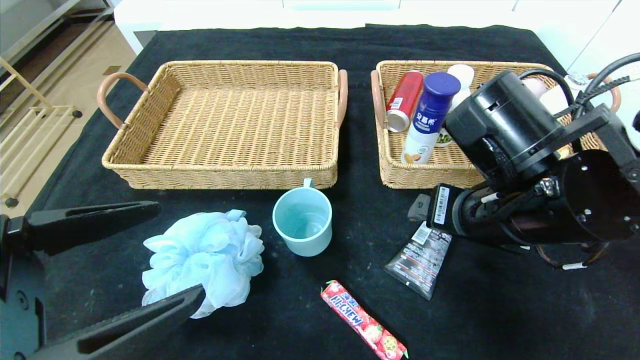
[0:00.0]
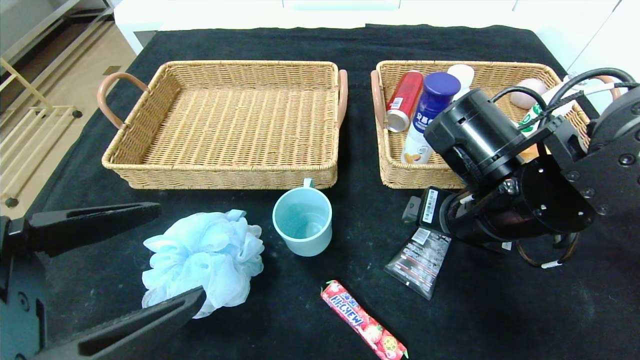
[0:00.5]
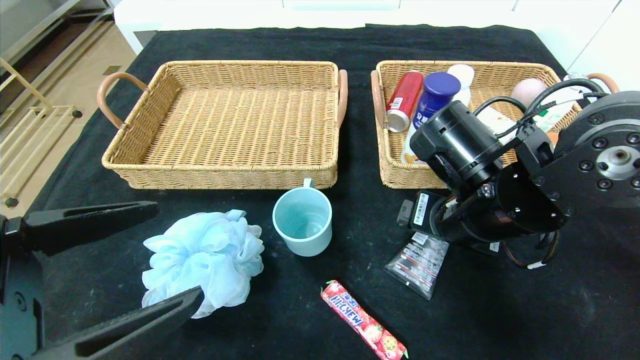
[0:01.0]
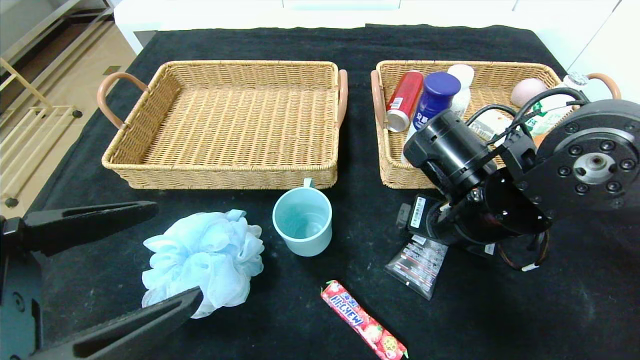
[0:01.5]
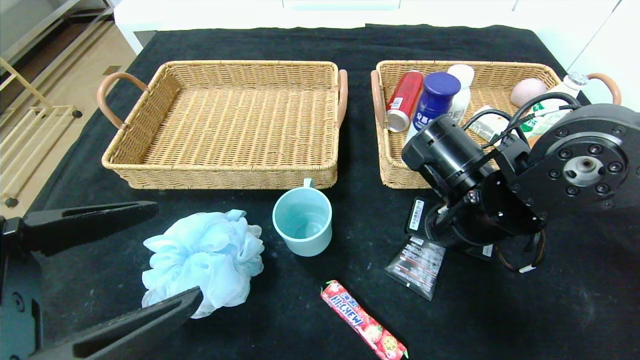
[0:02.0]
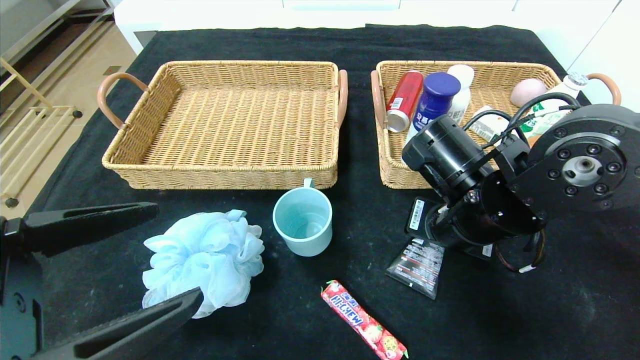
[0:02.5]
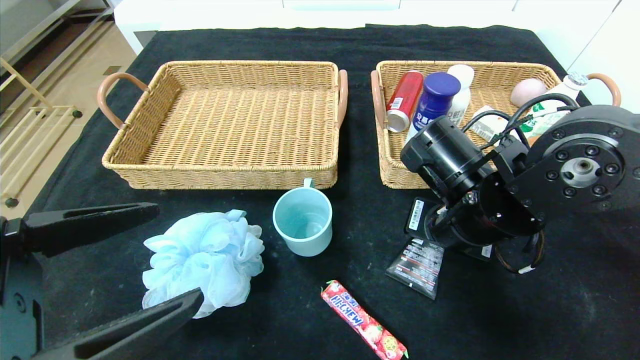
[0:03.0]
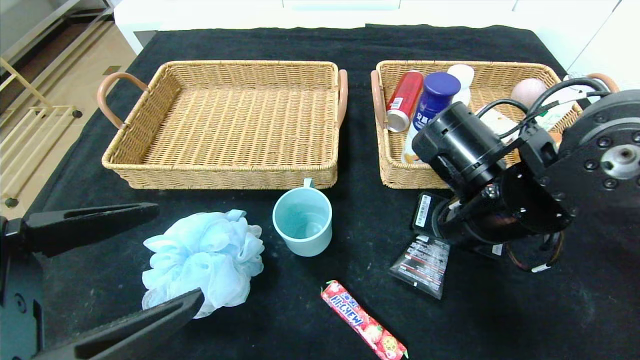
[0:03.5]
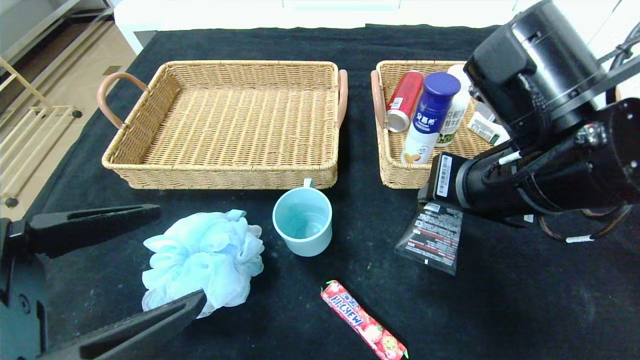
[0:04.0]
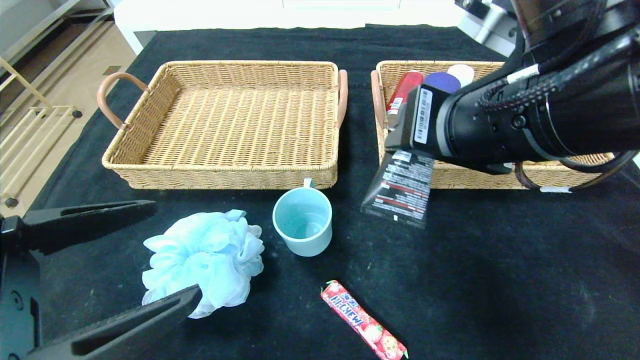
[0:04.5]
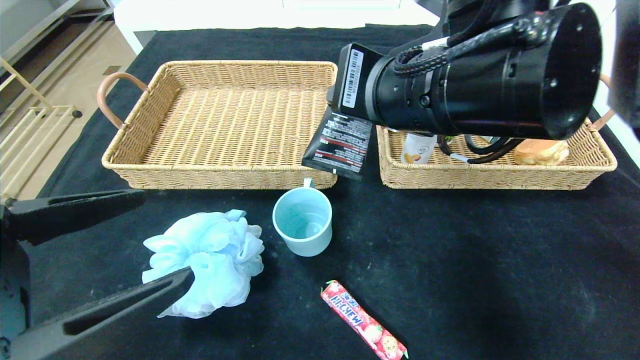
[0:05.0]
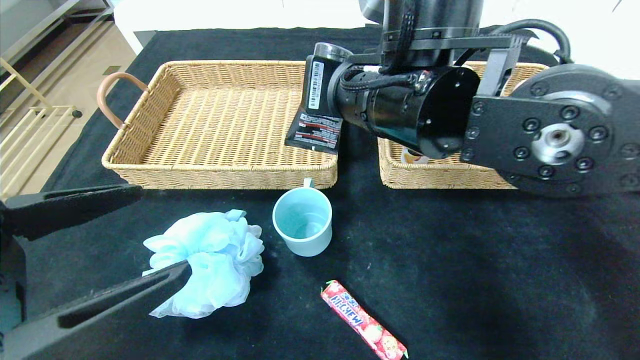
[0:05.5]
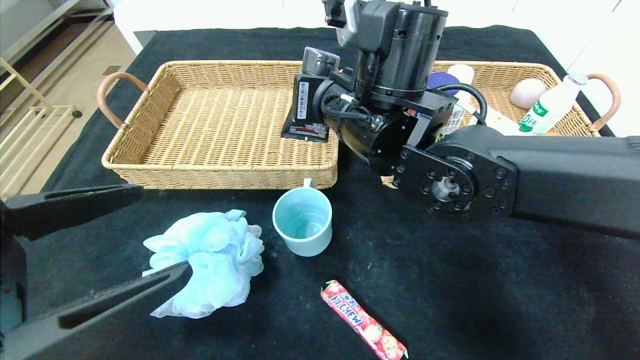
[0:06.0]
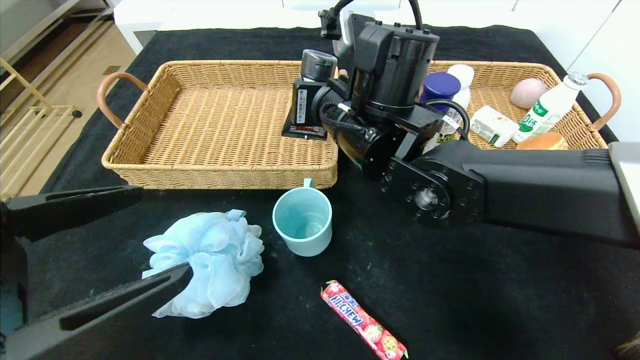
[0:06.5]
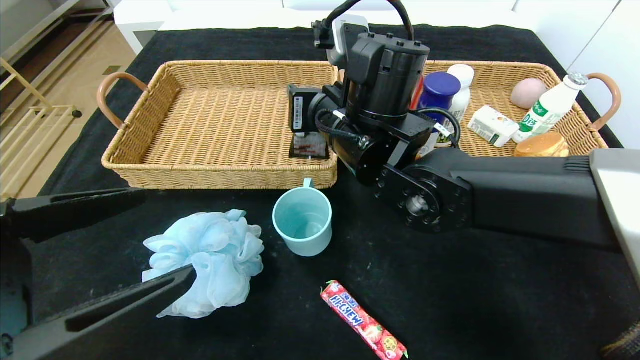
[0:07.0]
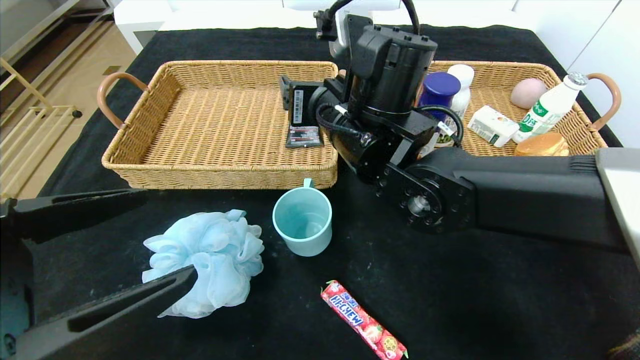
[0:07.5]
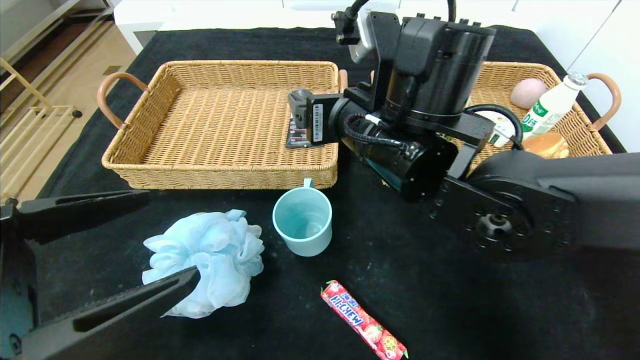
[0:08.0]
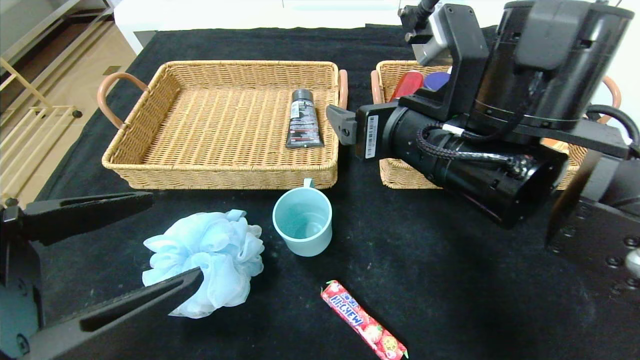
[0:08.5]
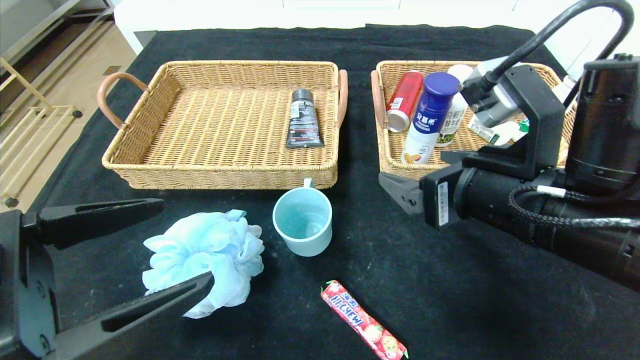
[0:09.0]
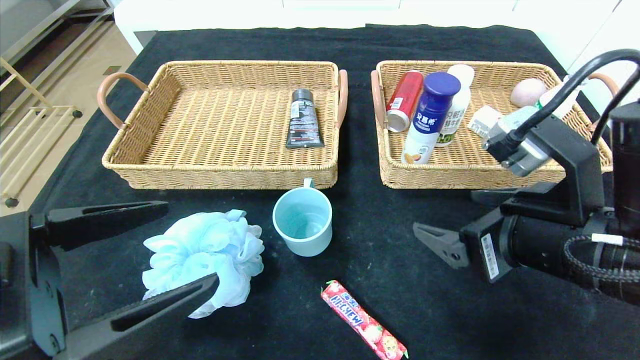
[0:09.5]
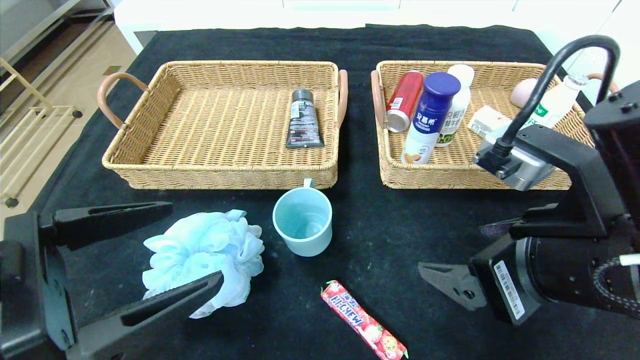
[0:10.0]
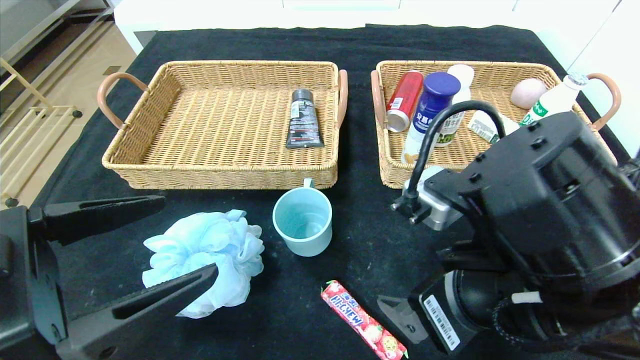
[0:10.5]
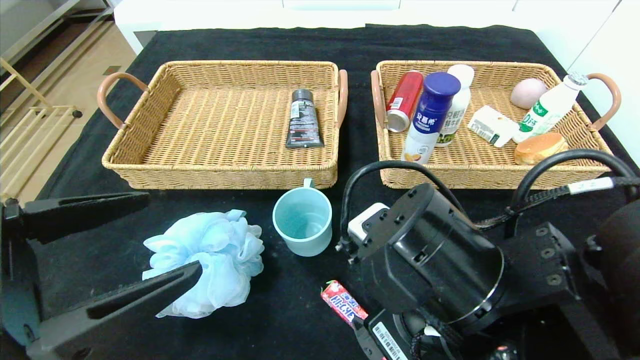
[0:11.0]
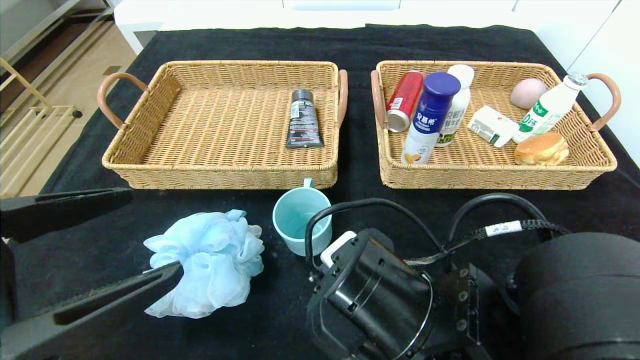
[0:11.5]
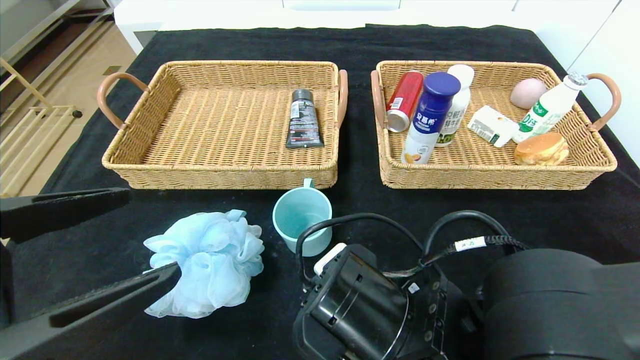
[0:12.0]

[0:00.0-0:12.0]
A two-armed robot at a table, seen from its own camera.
0:00.0 to 0:02.0: The right gripper moves roughly 5 cm, and closes.
0:02.0 to 0:04.0: The right gripper shifts approximately 5 cm upward.
0:04.0 to 0:06.0: The right gripper is displaced to the left and forward by some 15 cm.
0:06.0 to 0:08.0: The right gripper opens up.
0:08.0 to 0:10.0: The right gripper is displaced backward and to the right by roughly 20 cm.
0:10.0 to 0:12.0: The right gripper goes approximately 15 cm to the left and downward, and closes up.

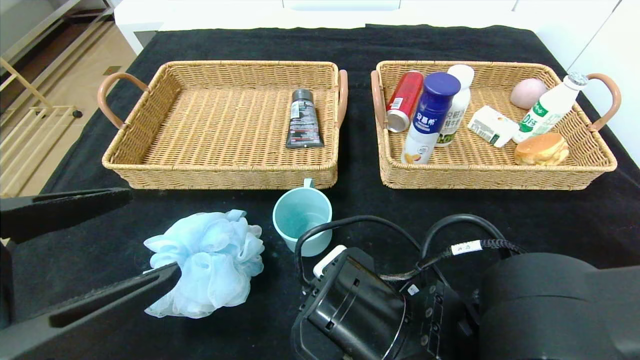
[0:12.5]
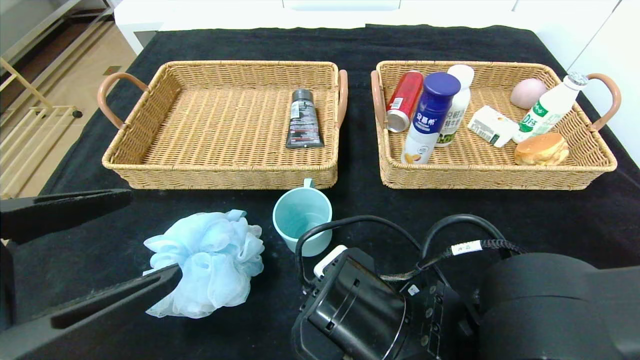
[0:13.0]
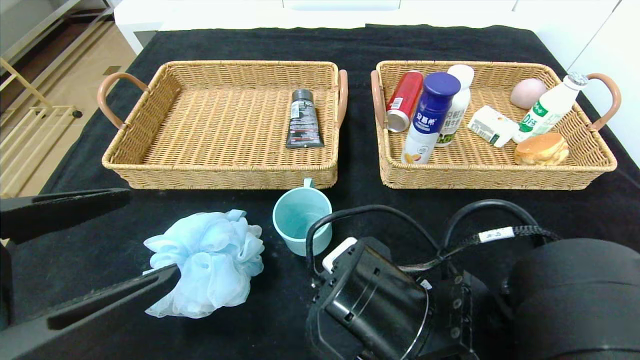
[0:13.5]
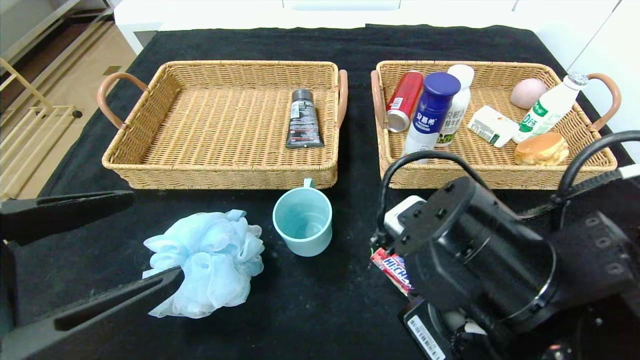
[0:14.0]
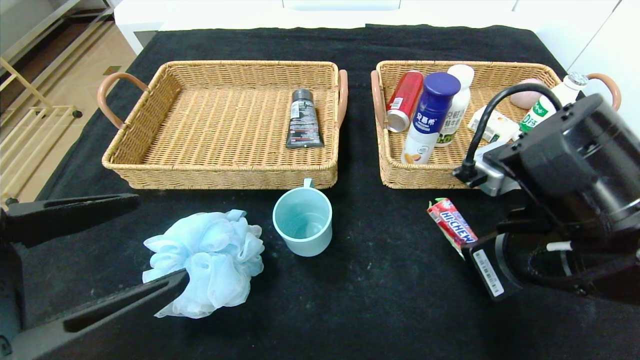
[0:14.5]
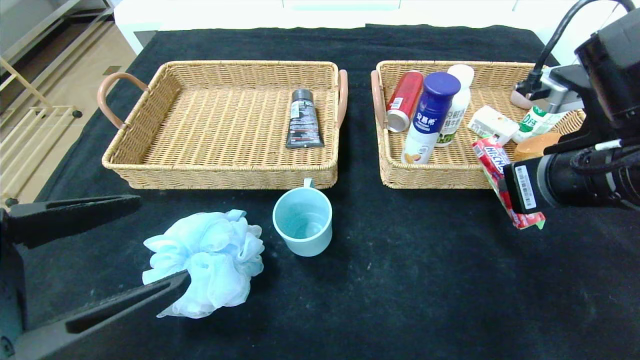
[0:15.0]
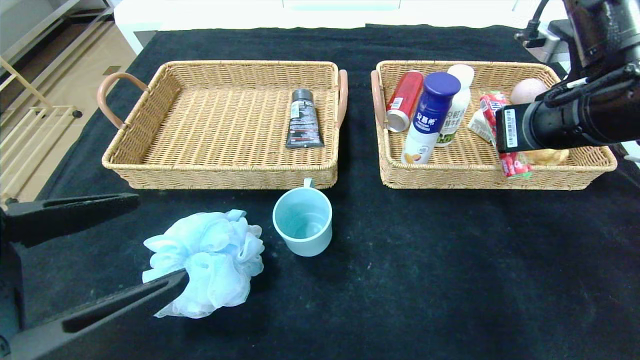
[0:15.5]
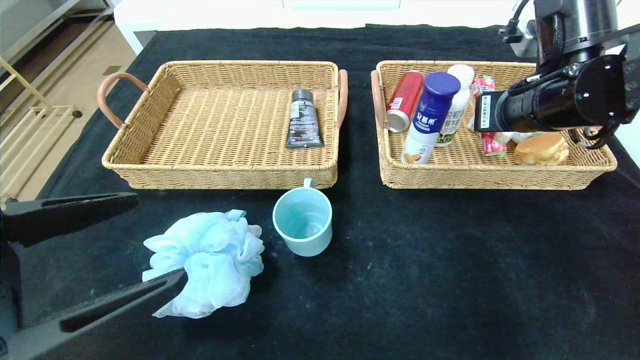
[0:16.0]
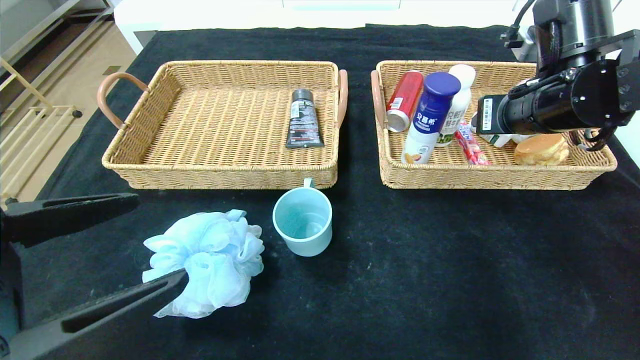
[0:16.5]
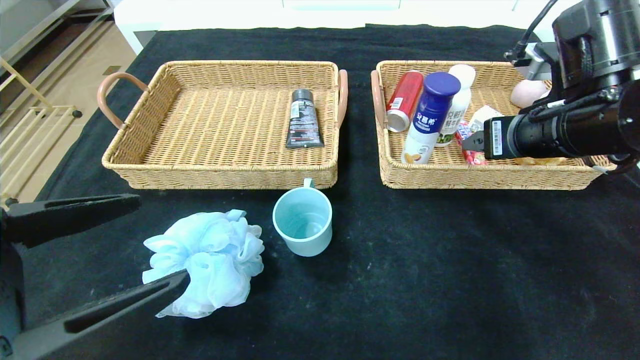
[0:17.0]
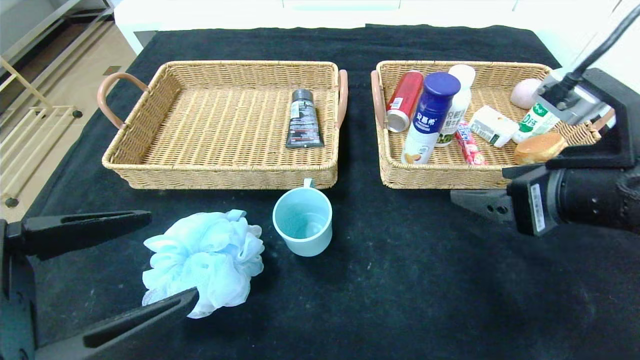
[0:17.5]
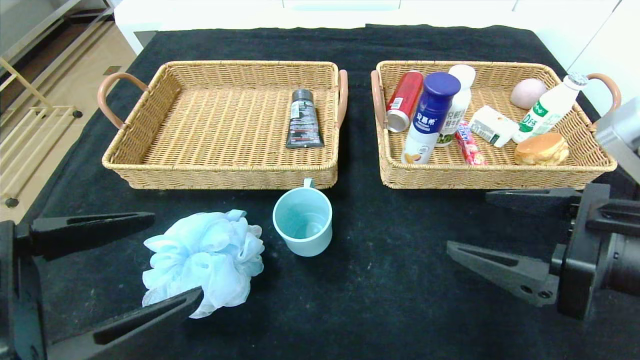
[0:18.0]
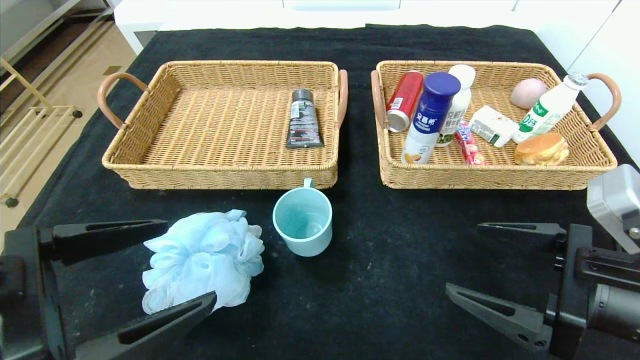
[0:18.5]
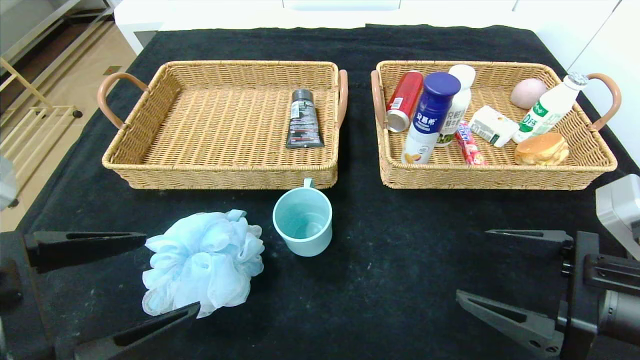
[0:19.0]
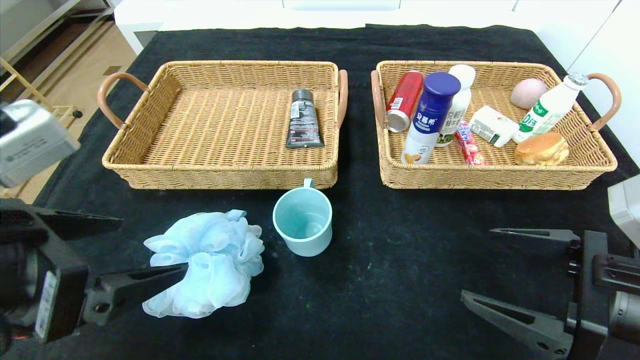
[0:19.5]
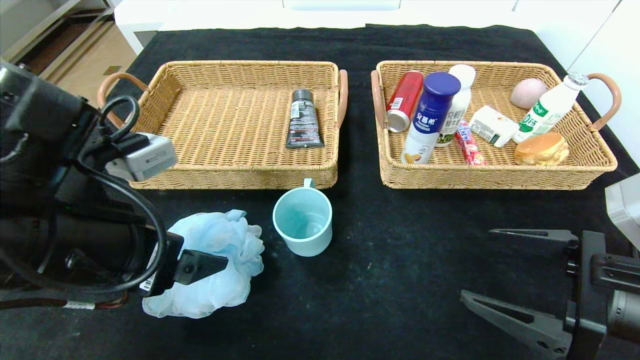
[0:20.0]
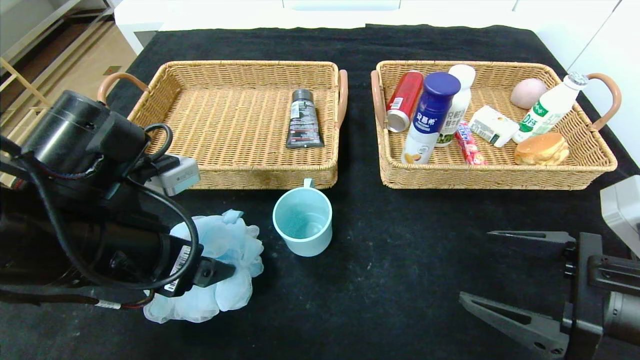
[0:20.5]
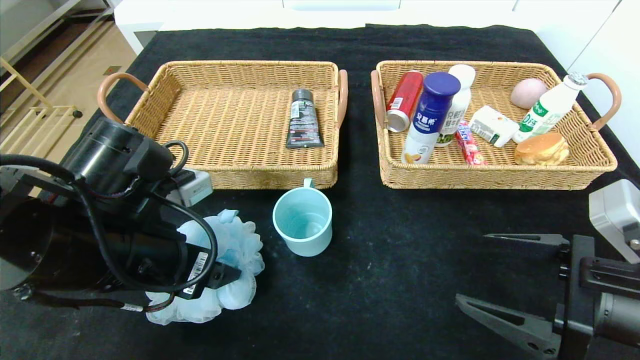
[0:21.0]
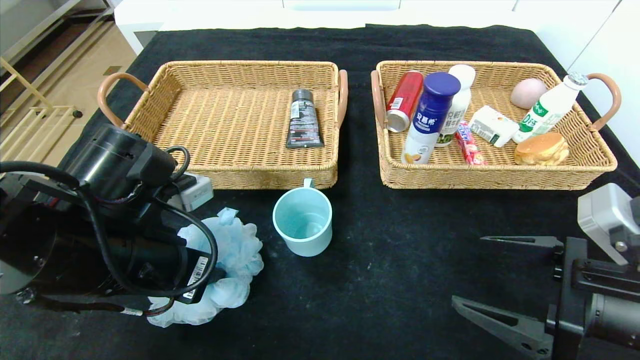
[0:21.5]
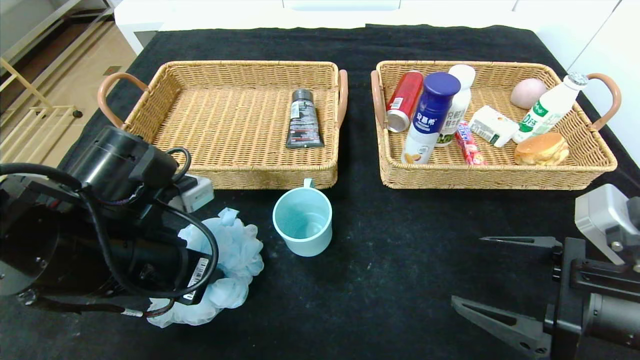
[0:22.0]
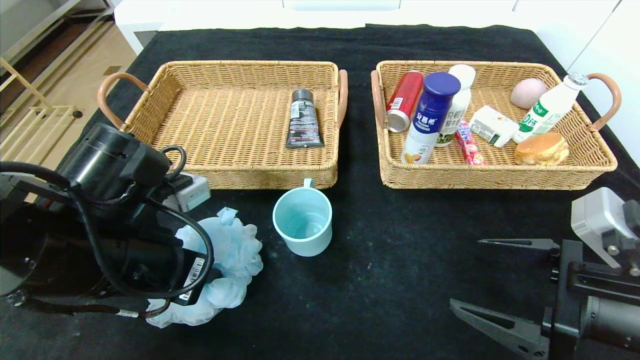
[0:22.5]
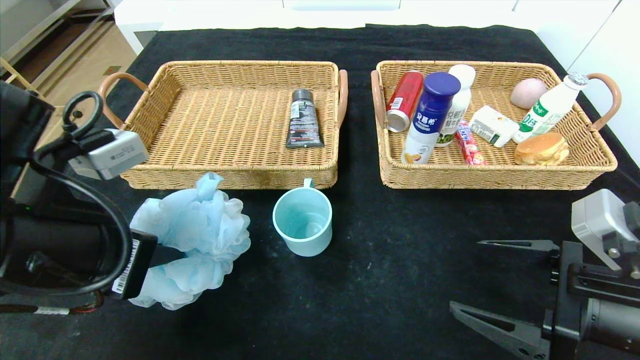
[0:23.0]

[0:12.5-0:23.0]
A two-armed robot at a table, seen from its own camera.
Step, 0:12.5 to 0:18.5: Pick up the fruit fudge and put it in the right basket.
0:12.5 to 0:14.5: The right gripper heads to the right and upward, covering roughly 15 cm.
0:14.5 to 0:16.5: The right gripper travels forward and upward by roughly 15 cm, and opens.
0:16.5 to 0:19.0: The right gripper moves backward and downward, about 20 cm, and opens.
0:19.0 to 0:21.0: The left gripper travels forward by approximately 10 cm.
0:21.0 to 0:23.0: The left gripper shifts by some 5 cm, and closes.
